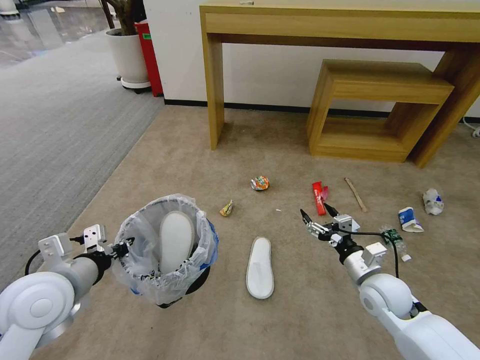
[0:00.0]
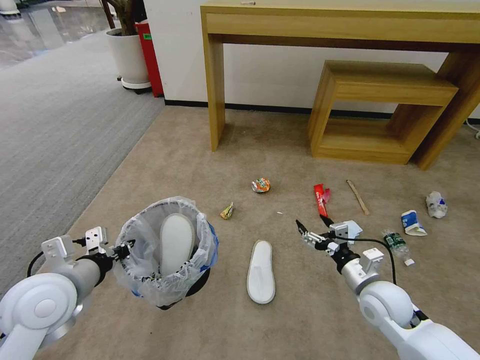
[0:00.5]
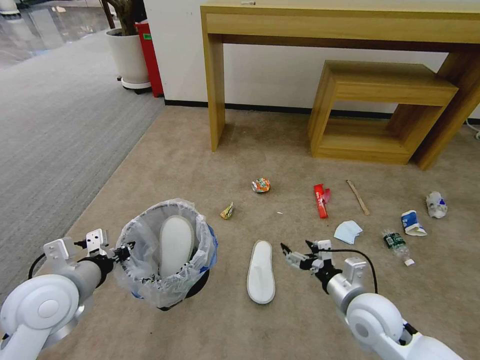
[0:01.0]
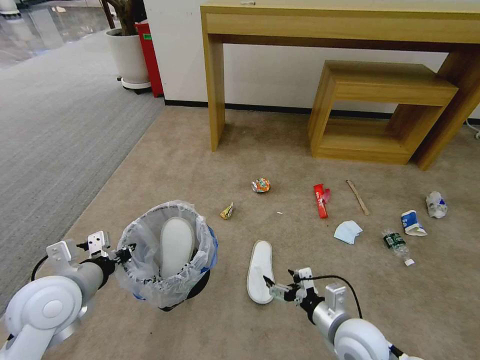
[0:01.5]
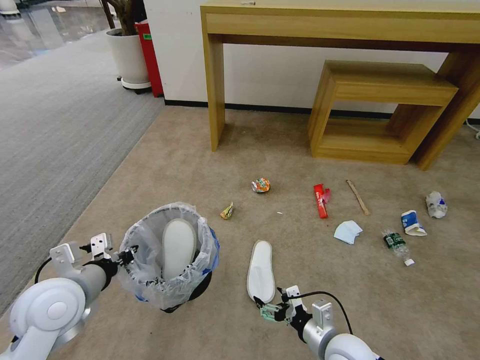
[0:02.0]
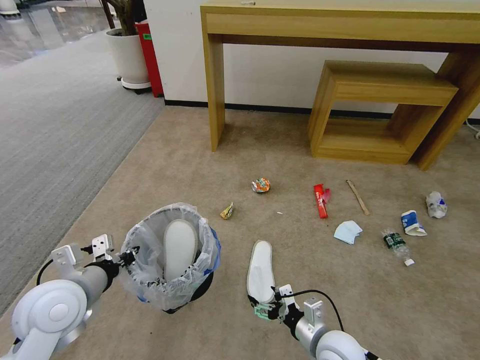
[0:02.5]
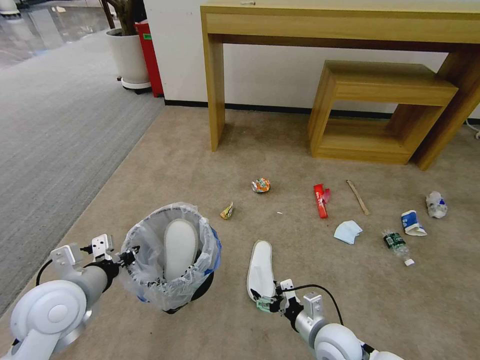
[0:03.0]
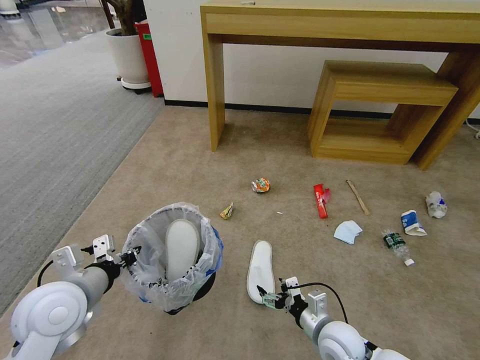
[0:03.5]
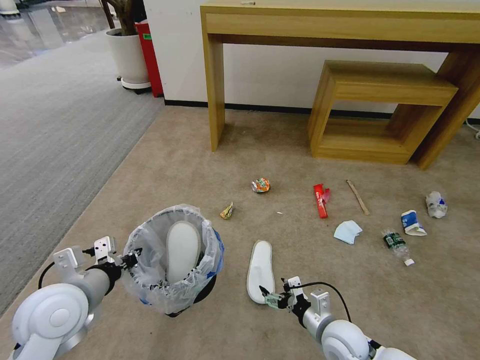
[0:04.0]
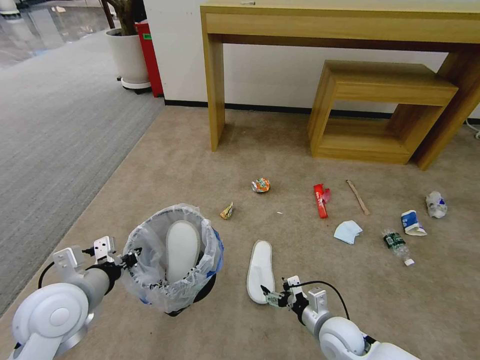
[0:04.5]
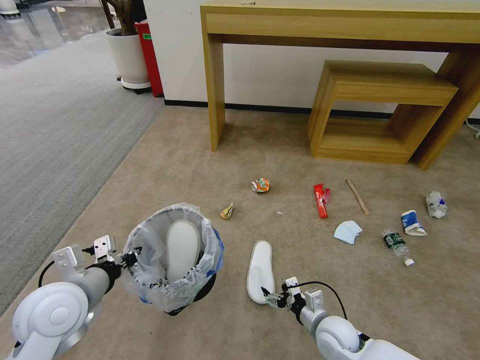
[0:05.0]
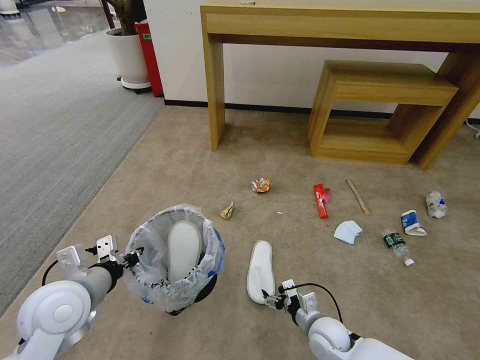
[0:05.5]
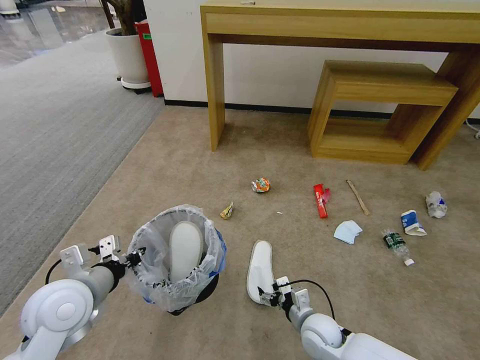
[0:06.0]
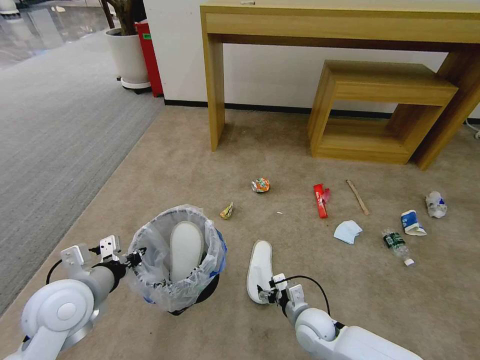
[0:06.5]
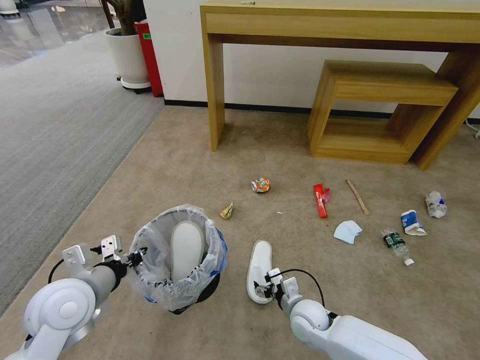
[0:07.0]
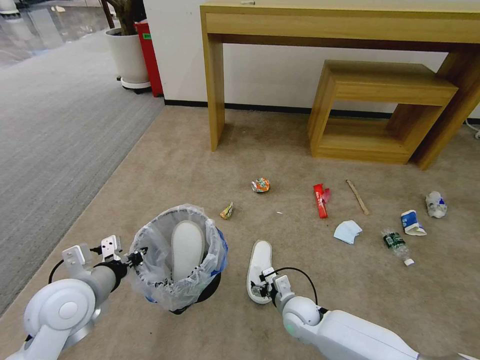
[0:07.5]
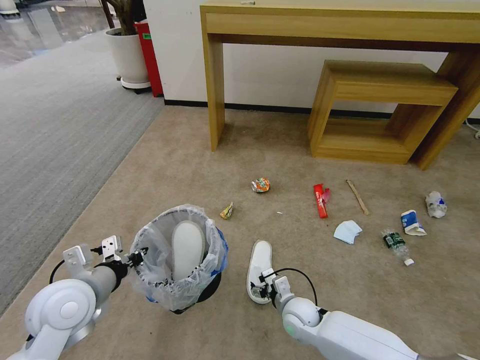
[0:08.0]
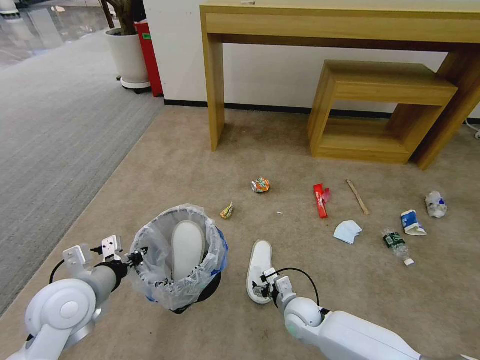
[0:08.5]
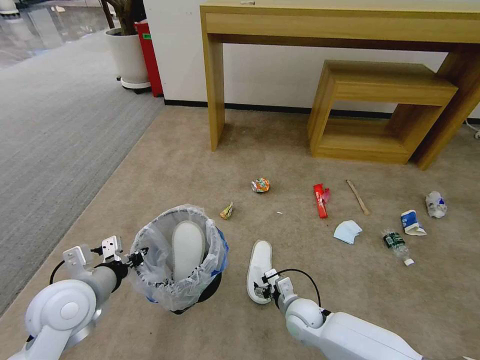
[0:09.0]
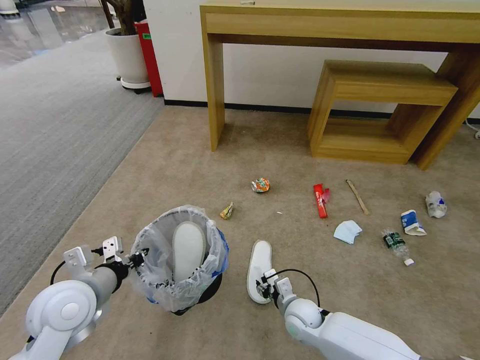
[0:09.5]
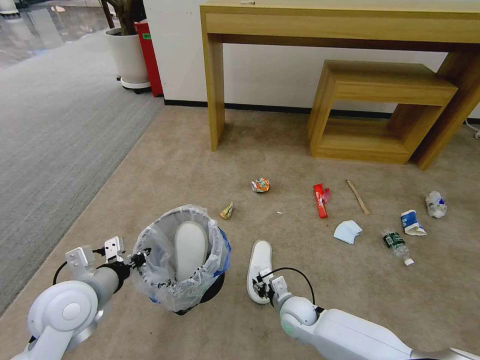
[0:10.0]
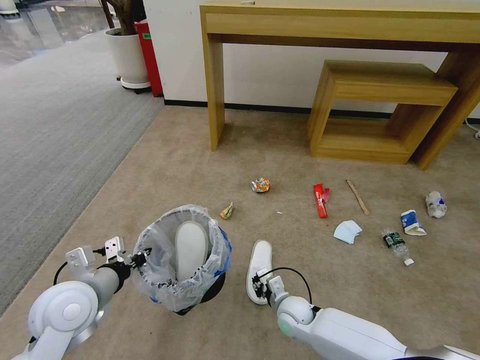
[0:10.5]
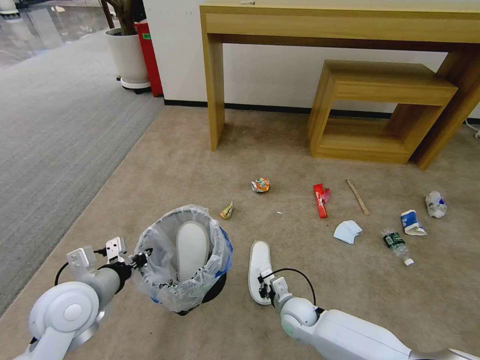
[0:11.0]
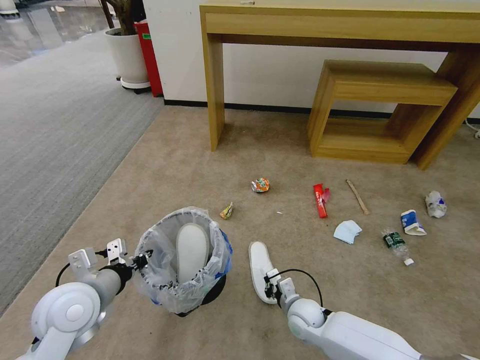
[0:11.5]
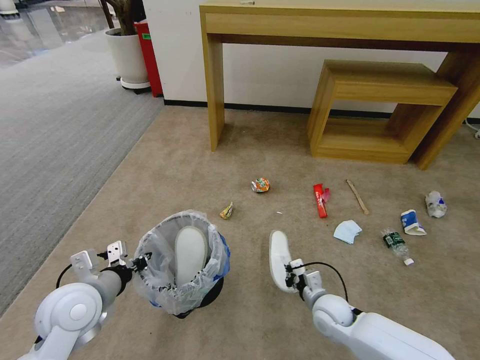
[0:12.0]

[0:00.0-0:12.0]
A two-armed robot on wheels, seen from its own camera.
Task of the whole recording: Pick up the trash bin and place the garbage on the floor into it.
0:00.0 to 0:02.0: The right gripper heads backward and to the left, covering some 15 cm.
0:02.0 to 0:04.0: The grippers stay close to where they were, moving slightly.
0:04.0 to 0:06.0: The right gripper shifts by roughly 5 cm.
0:06.0 to 0:08.0: The right gripper moves approximately 5 cm.
0:08.0 to 0:10.0: The right gripper closes its fingers.
0:10.0 to 0:12.0: The right gripper moves to the right, roughly 10 cm, and closes.

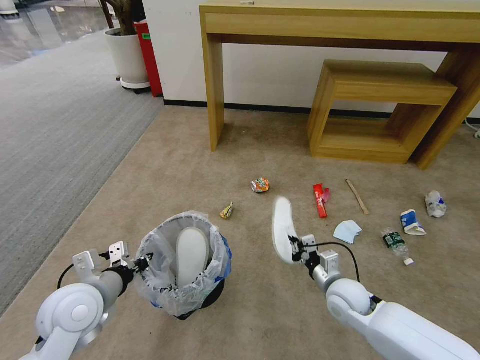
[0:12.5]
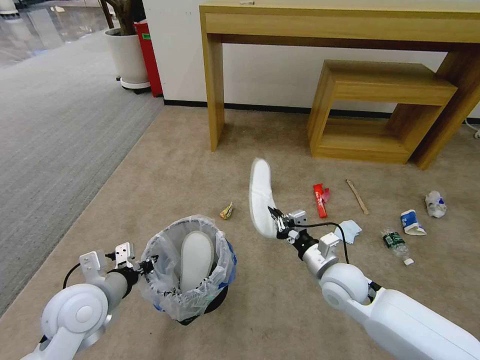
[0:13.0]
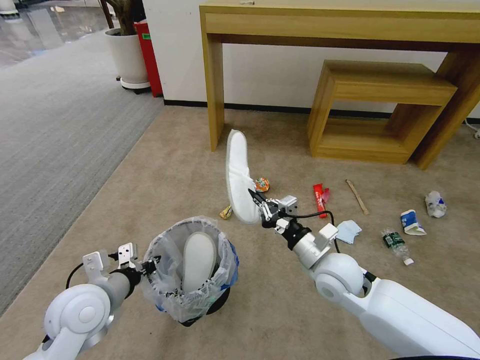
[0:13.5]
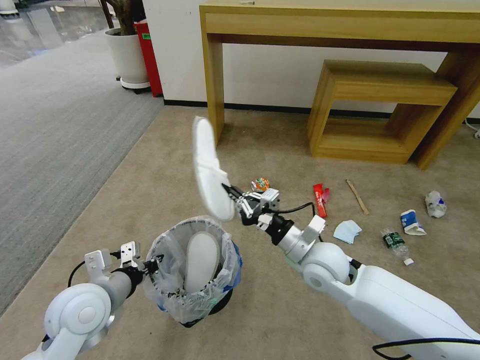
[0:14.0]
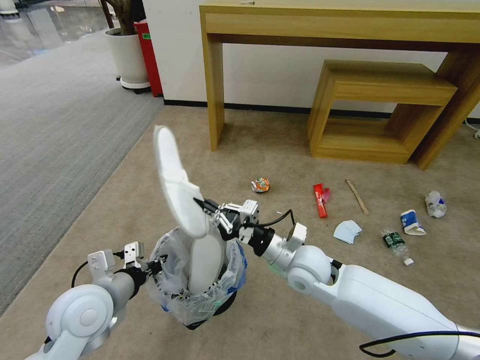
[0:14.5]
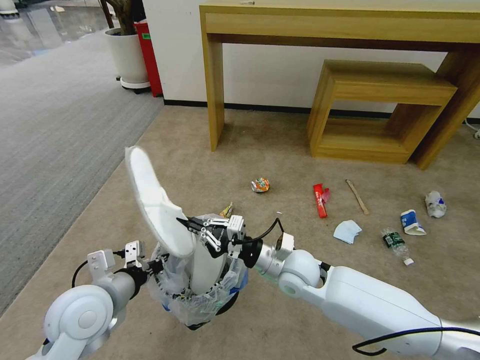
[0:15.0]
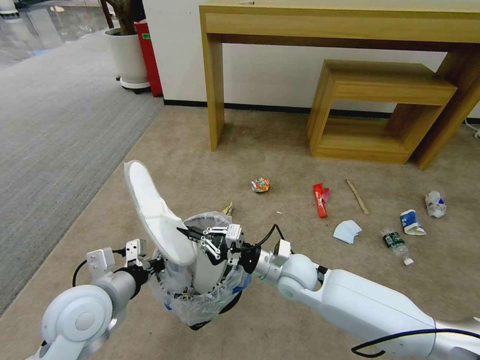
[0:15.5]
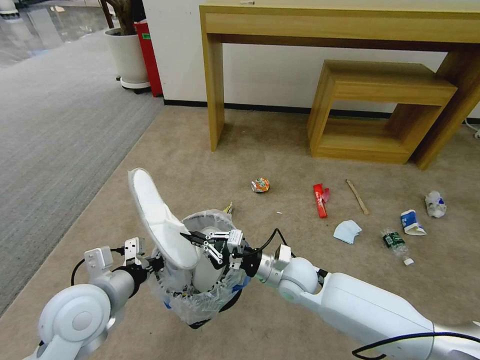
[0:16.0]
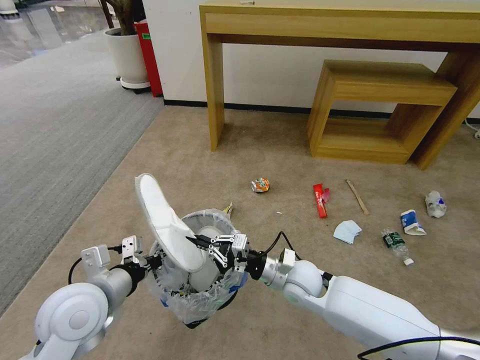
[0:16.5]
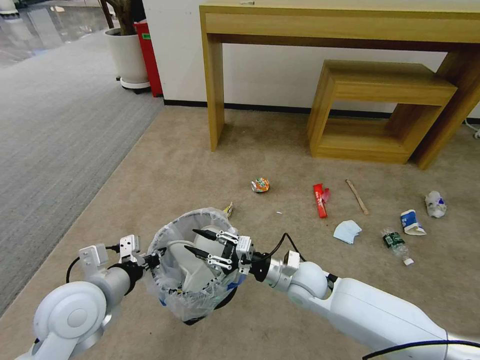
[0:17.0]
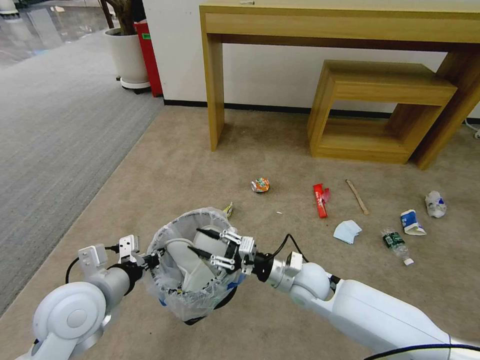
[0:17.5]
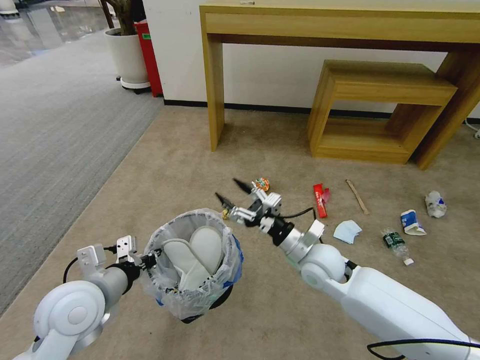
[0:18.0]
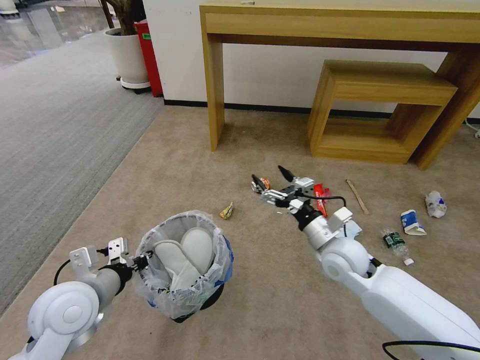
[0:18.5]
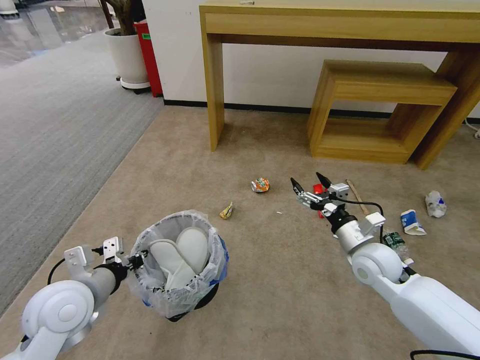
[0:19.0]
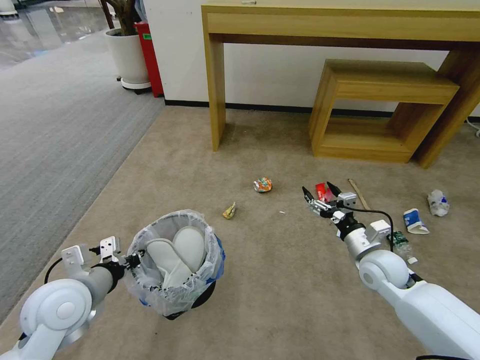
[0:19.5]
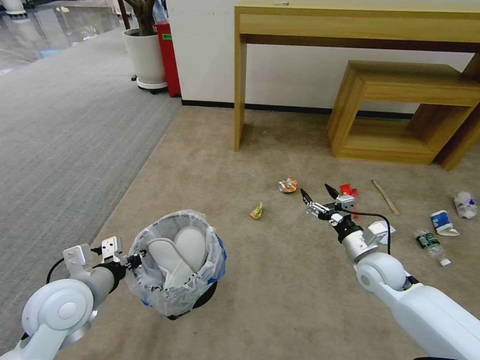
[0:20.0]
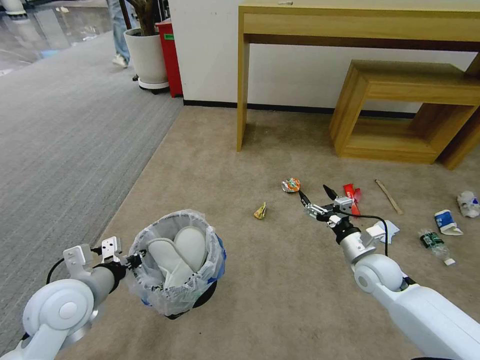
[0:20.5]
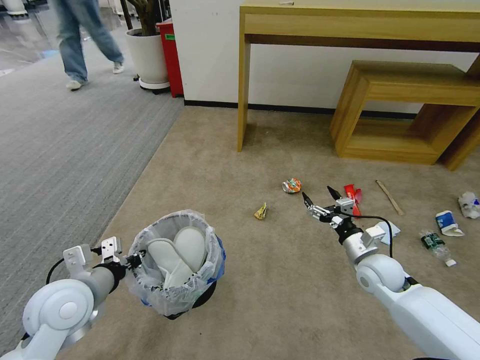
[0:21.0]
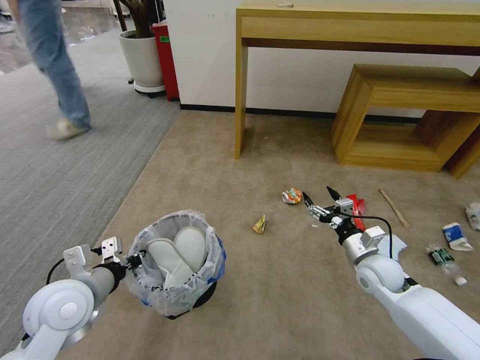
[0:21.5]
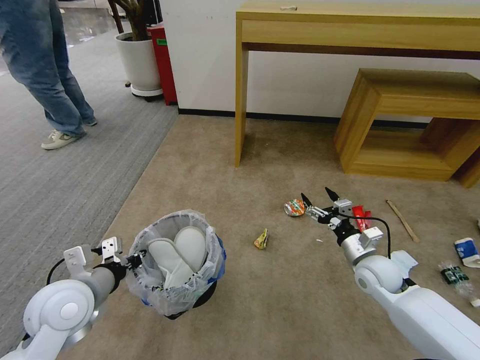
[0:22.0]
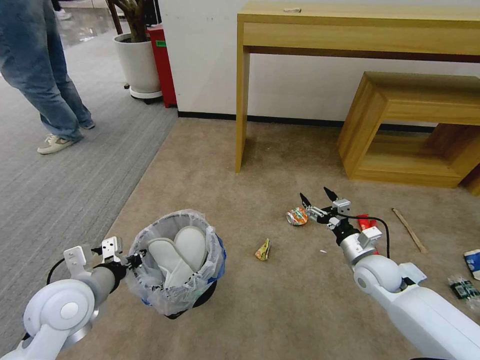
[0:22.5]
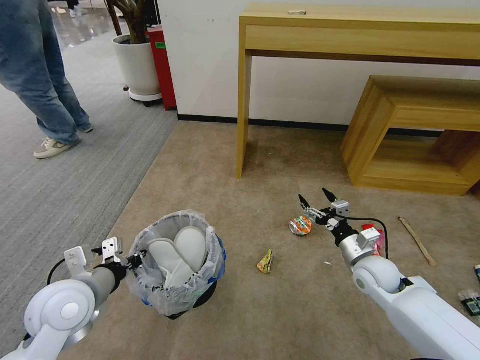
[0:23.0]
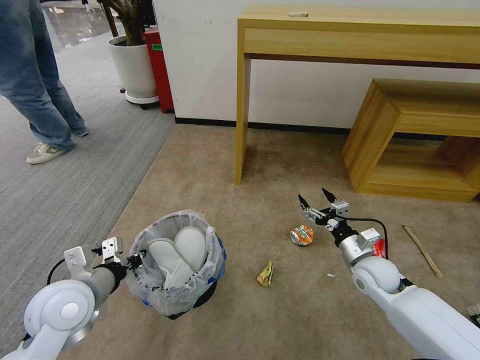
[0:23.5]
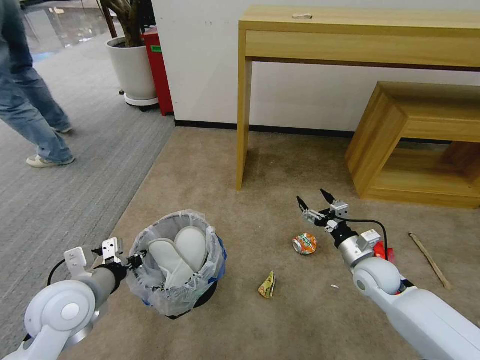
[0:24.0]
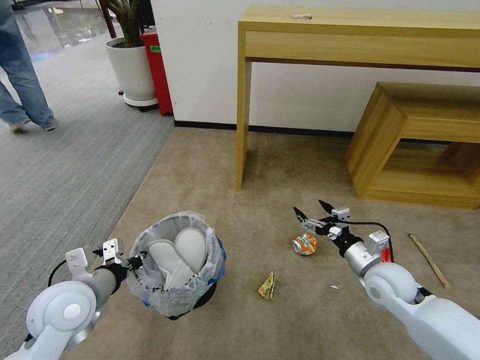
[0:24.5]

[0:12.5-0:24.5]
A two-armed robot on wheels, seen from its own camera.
Task of the whole recording: Pick up the trash bin and place the garbage on the floor into it.
0:12.5 to 0:14.5: The right gripper heads to the left and upward, covering approximately 15 cm.
0:14.5 to 0:16.5: The right gripper travels downward by approximately 5 cm.
0:16.5 to 0:18.5: The right gripper shifts some 10 cm to the right and upward, and opens up.
0:18.5 to 0:20.5: The right gripper is displaced to the right and downward by some 10 cm.

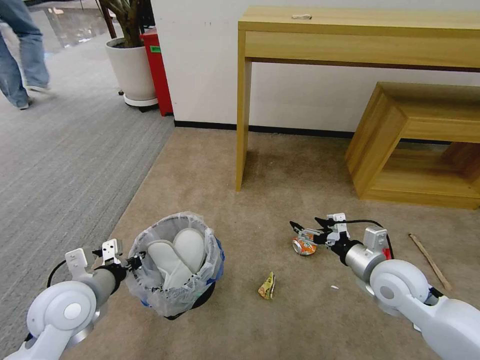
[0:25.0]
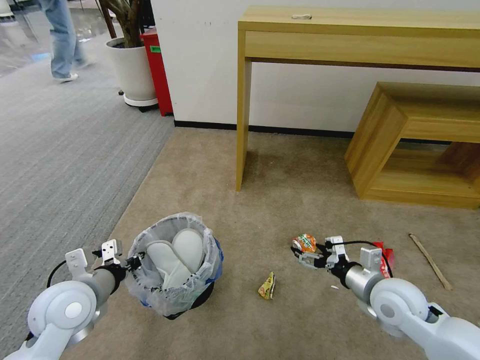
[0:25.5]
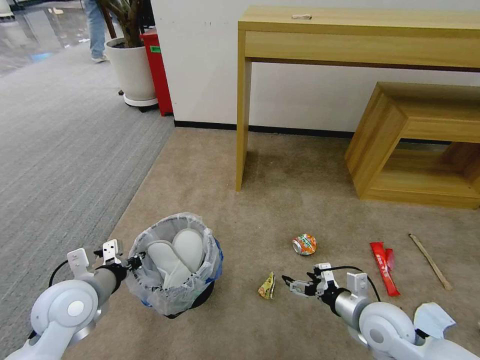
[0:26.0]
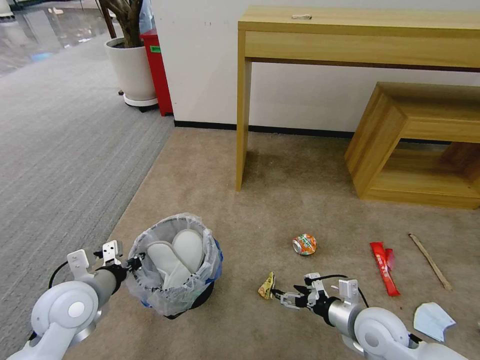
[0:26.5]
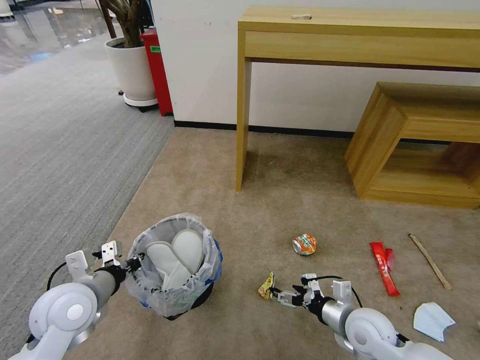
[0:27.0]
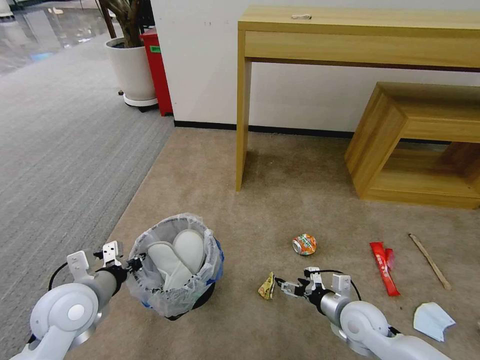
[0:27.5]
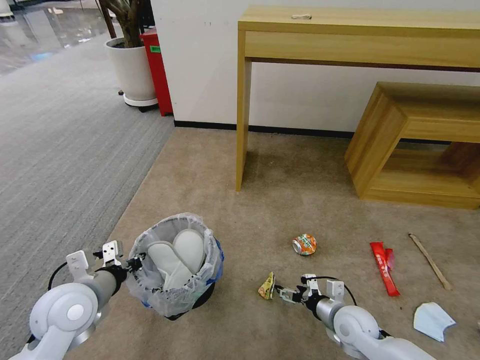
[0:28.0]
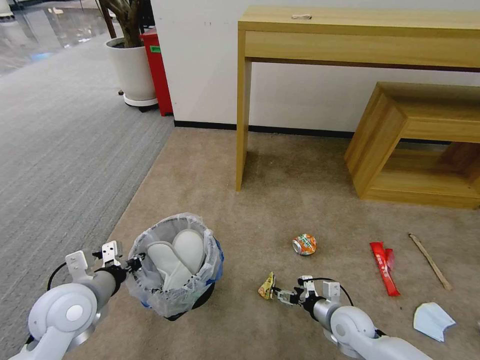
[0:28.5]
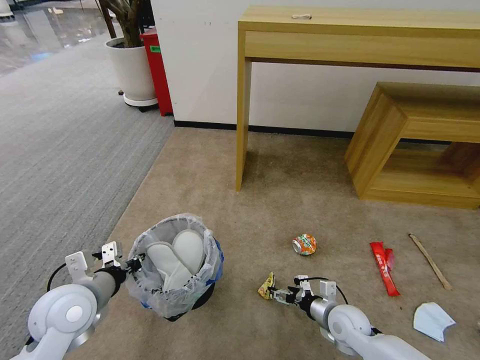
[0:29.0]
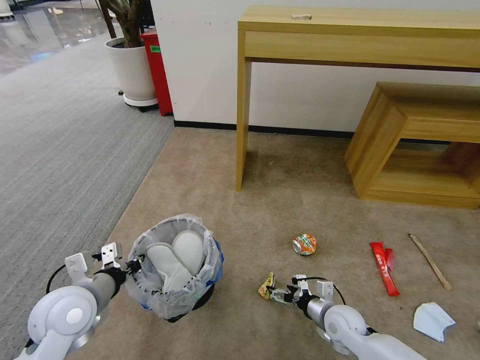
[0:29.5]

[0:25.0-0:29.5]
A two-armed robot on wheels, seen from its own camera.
Task of the whole recording: Pick up the trash bin and place the garbage on the floor into it.
0:25.0 to 0:27.0: The right gripper travels downward and backward by about 10 cm.
0:27.0 to 0:29.5: The right gripper travels downward by approximately 10 cm.
